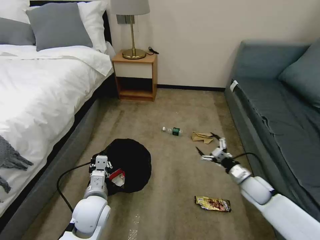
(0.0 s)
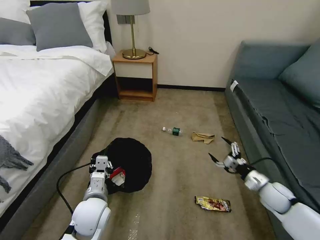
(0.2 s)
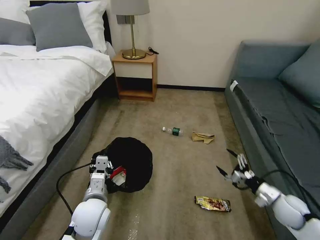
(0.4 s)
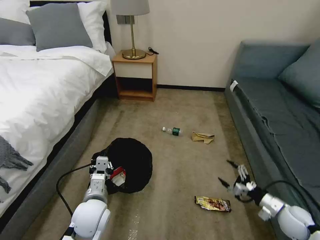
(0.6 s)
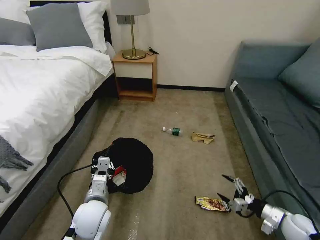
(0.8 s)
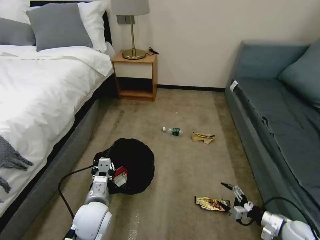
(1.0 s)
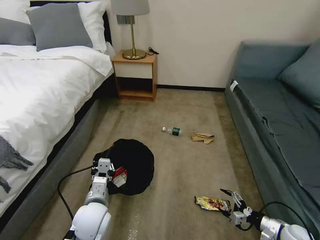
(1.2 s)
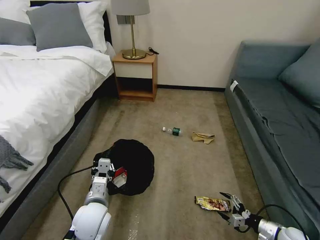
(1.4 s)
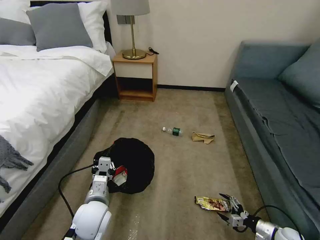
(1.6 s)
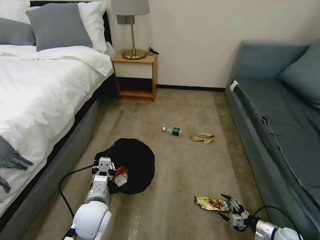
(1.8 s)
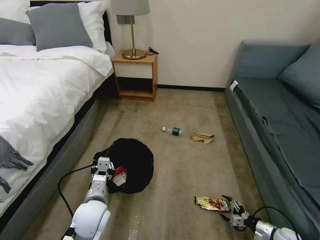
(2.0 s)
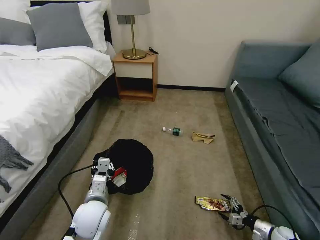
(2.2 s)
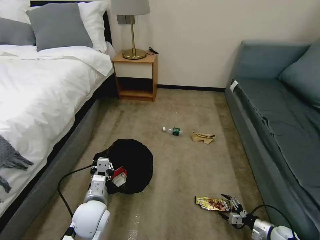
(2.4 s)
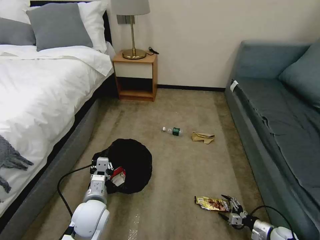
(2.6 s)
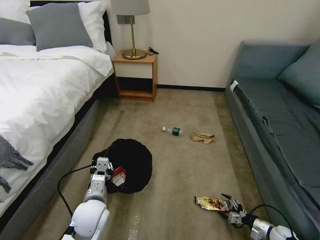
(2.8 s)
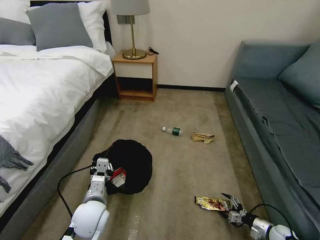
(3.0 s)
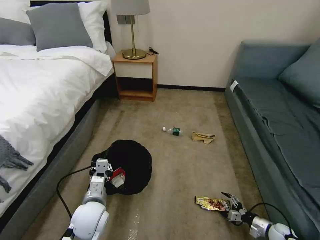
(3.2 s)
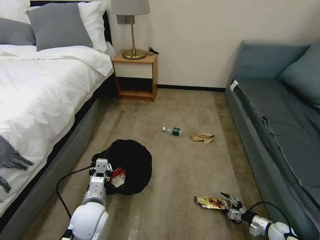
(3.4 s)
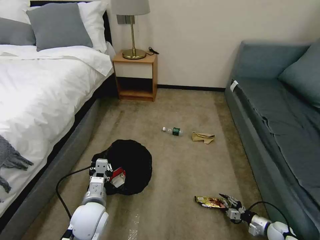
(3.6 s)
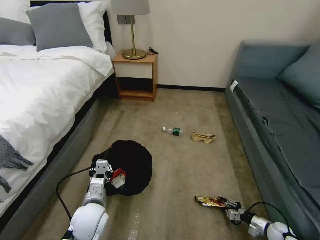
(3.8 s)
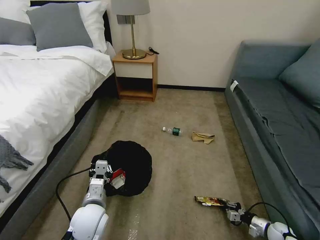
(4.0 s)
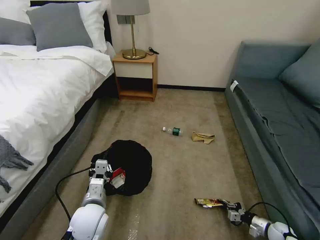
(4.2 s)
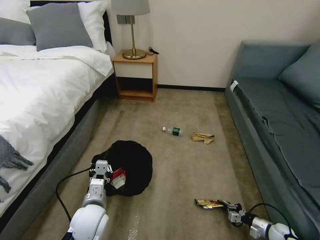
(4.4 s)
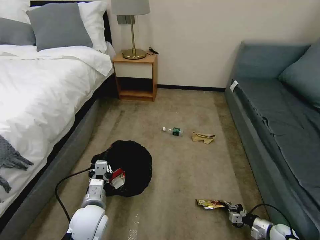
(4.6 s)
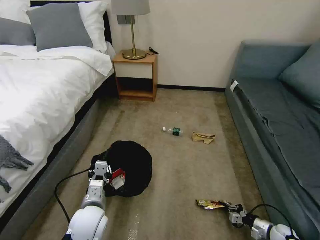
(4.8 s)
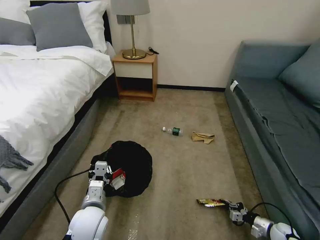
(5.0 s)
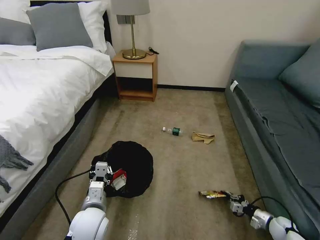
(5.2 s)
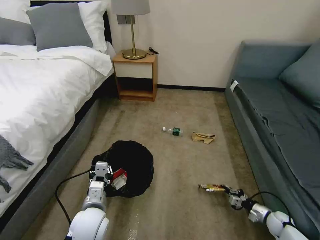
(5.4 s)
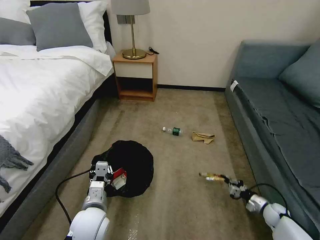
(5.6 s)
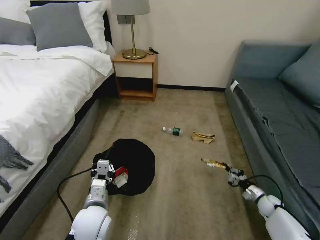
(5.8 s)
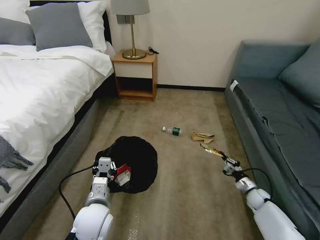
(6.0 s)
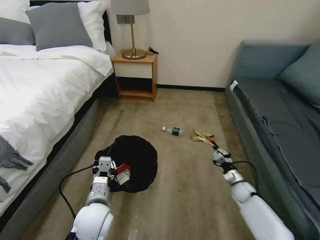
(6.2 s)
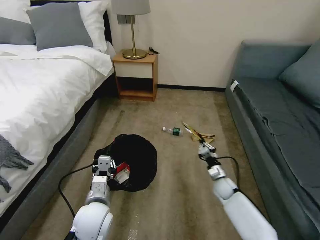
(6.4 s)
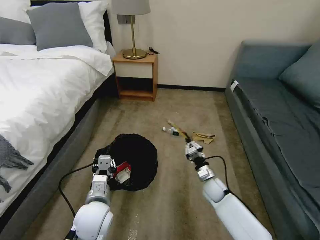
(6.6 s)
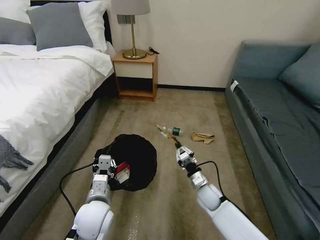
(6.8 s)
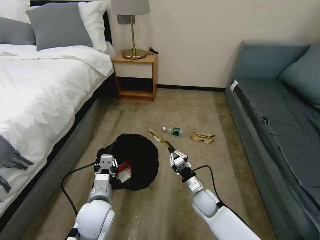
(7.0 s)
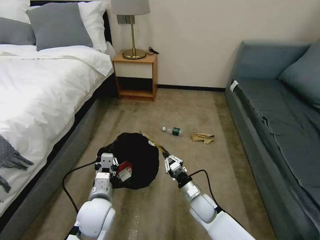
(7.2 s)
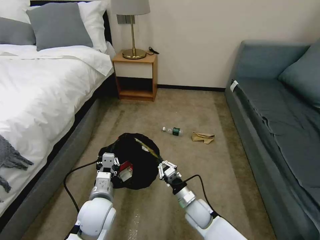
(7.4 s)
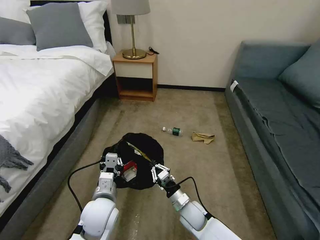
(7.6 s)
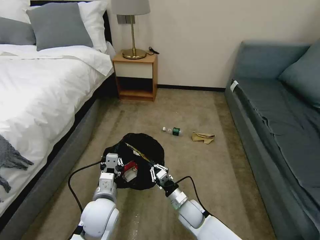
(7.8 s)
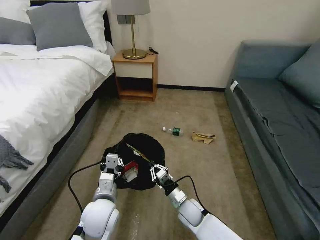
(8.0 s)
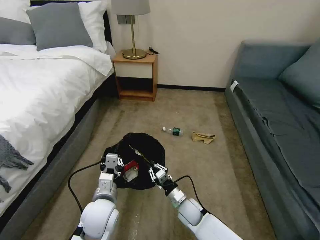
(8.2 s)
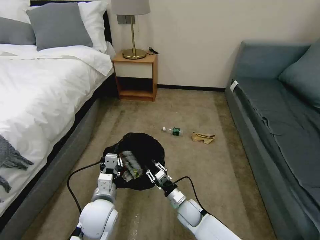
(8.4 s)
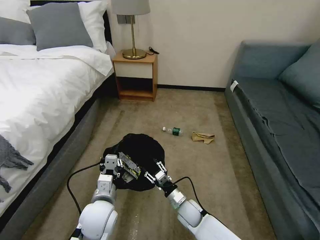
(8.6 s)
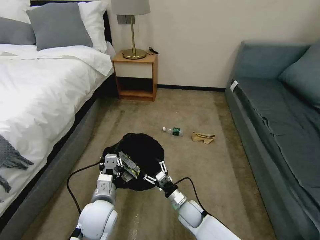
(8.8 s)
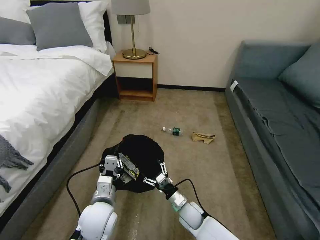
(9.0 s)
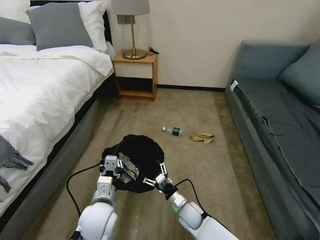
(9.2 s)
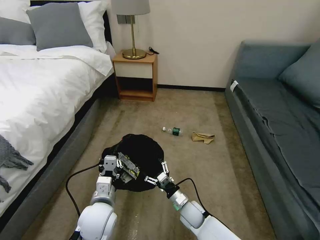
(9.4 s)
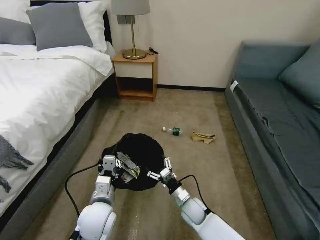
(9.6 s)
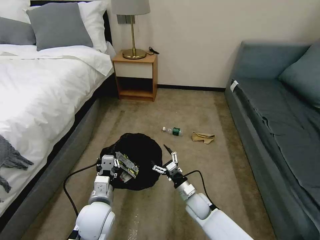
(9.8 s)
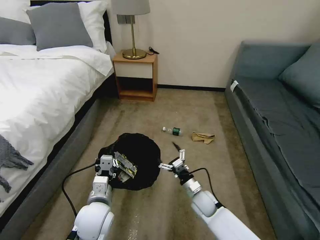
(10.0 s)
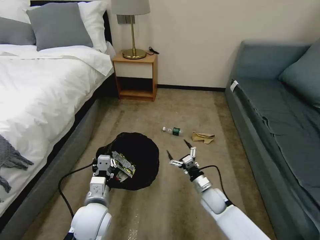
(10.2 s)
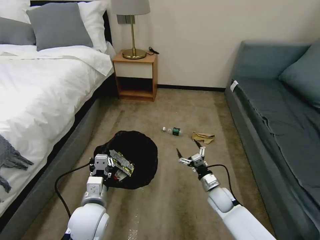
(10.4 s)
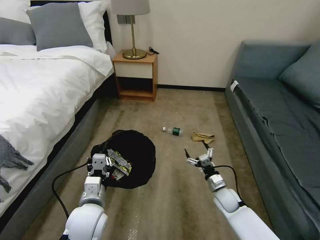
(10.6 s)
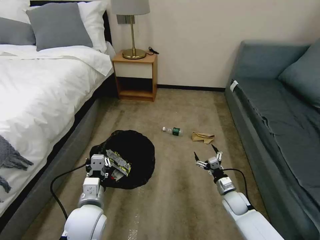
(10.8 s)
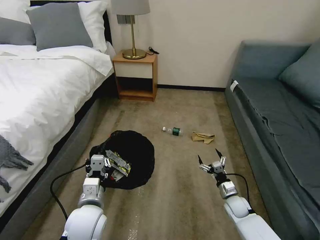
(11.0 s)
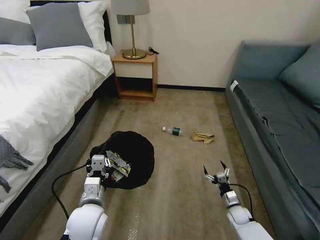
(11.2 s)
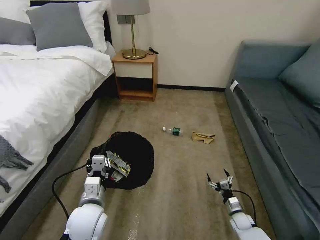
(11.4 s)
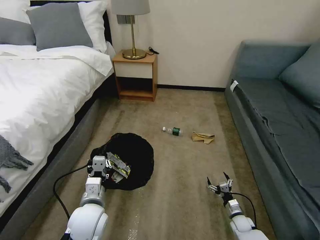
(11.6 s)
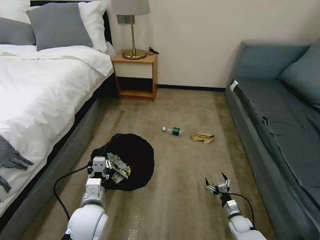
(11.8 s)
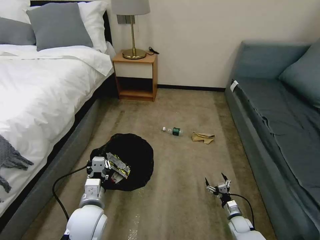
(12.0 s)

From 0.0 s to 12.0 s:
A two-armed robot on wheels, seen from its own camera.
Task of the whole recording: Pick up the trash bin, then pick up the garbage on the floor and place it into the trash bin.
From 0.0 s to 1.6 s: The right gripper is displaced backward, downward and to the right by some 20 cm.
From 1.6 s to 3.0 s: The right gripper goes some 5 cm downward.
From 3.0 s to 4.4 s: The right gripper closes up.
From 4.4 s to 6.0 s: The right gripper heads forward, covering roughly 15 cm.
From 6.0 s to 7.6 s: The right gripper shifts some 35 cm to the left.
From 7.6 s to 9.0 s: The right gripper opens up.
From 9.0 s to 10.4 s: The right gripper shifts roughly 10 cm to the right.
From 10.4 s to 12.0 s: The right gripper heads downward and to the right, covering roughly 20 cm.

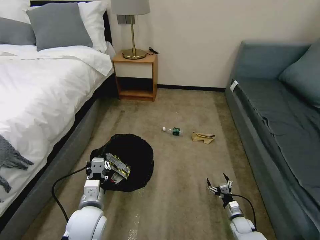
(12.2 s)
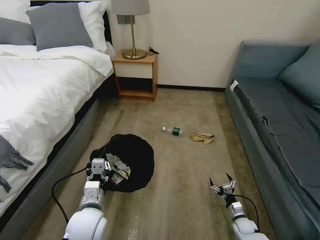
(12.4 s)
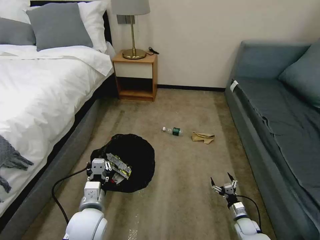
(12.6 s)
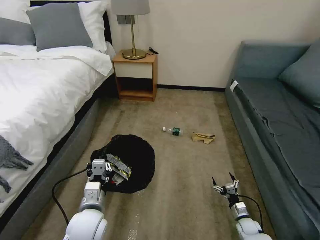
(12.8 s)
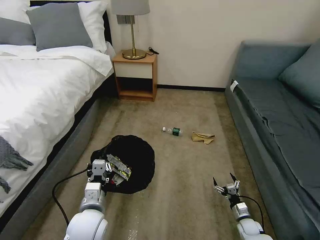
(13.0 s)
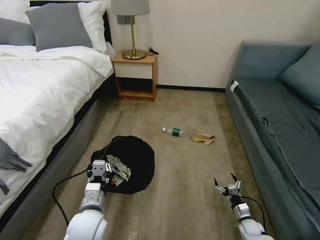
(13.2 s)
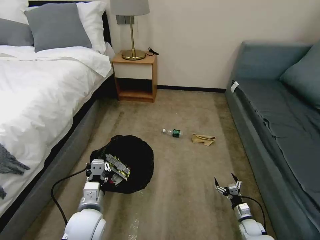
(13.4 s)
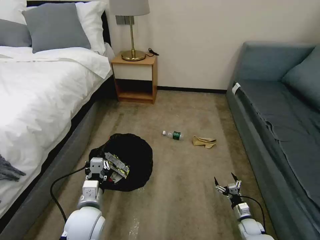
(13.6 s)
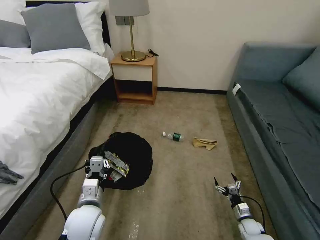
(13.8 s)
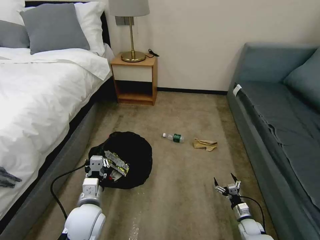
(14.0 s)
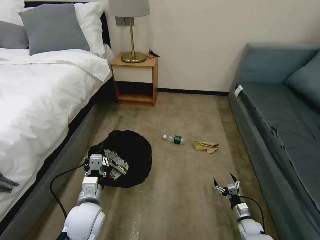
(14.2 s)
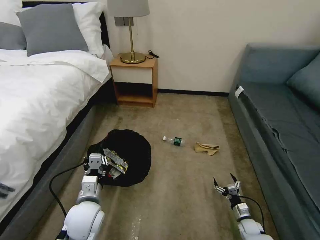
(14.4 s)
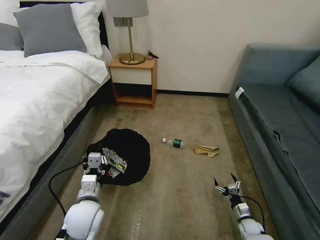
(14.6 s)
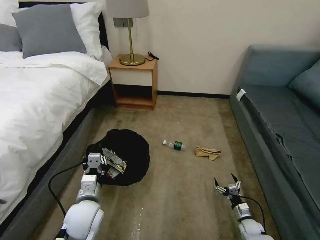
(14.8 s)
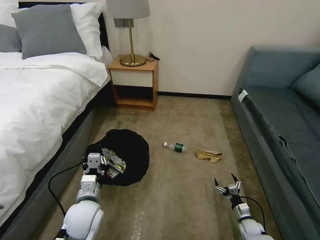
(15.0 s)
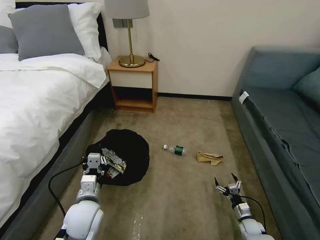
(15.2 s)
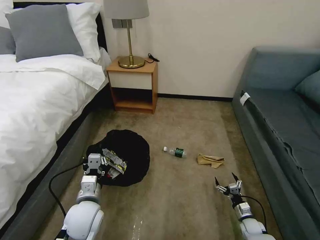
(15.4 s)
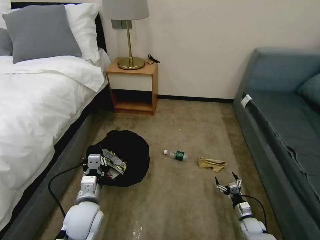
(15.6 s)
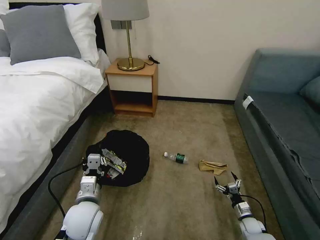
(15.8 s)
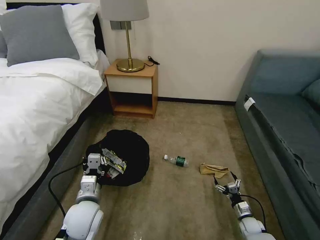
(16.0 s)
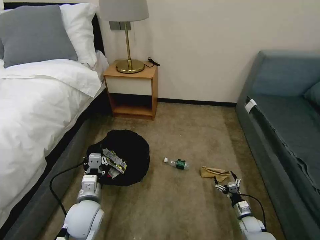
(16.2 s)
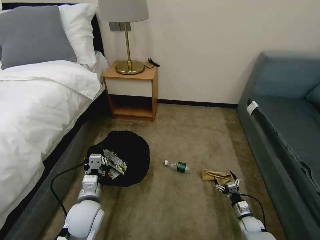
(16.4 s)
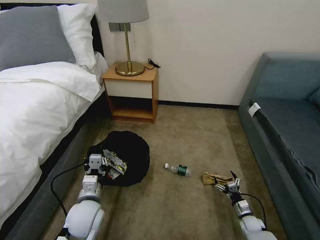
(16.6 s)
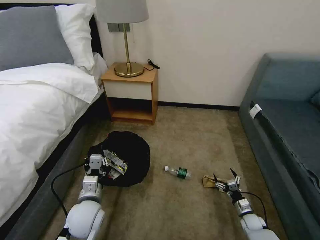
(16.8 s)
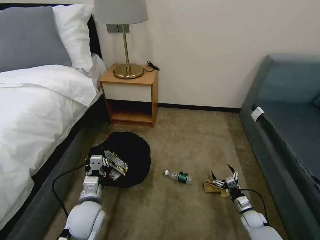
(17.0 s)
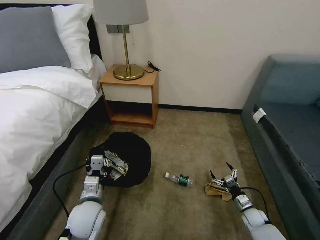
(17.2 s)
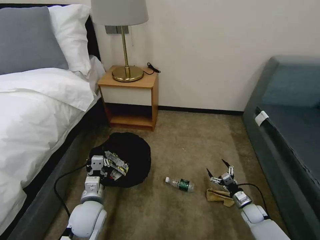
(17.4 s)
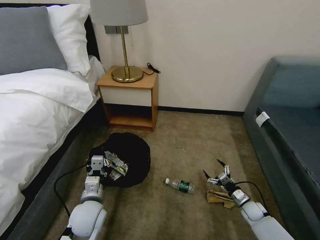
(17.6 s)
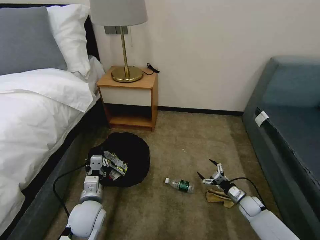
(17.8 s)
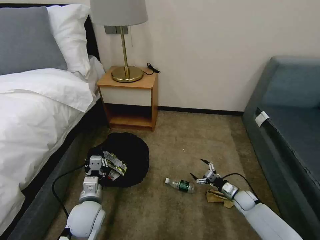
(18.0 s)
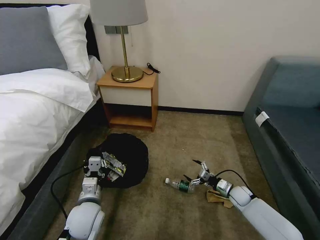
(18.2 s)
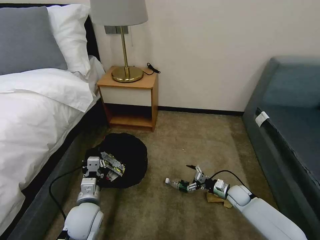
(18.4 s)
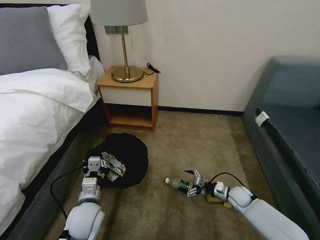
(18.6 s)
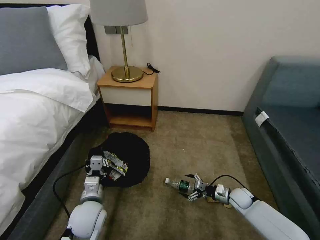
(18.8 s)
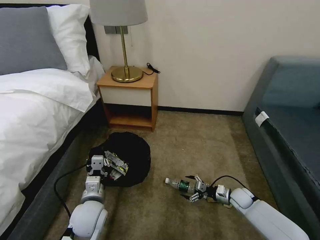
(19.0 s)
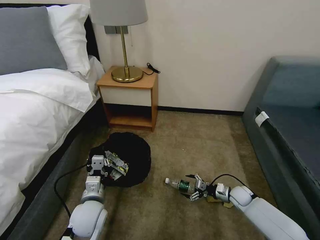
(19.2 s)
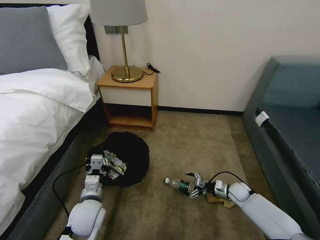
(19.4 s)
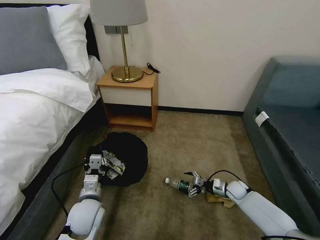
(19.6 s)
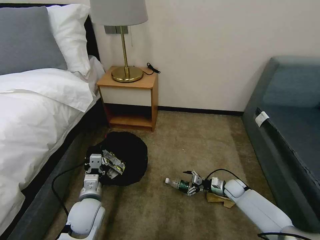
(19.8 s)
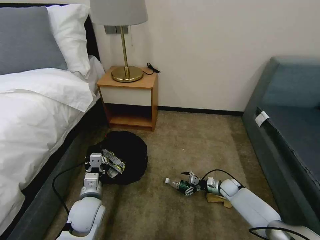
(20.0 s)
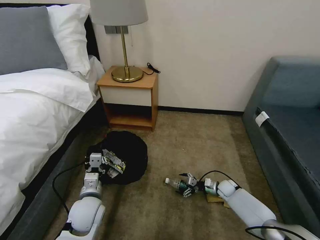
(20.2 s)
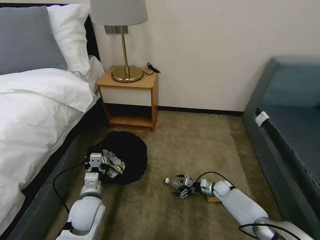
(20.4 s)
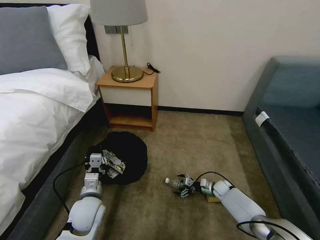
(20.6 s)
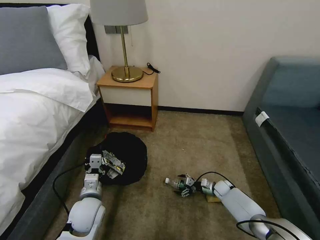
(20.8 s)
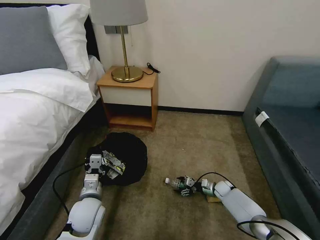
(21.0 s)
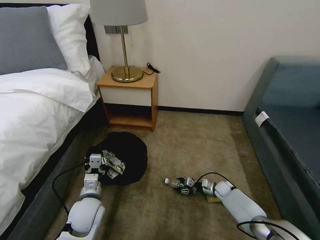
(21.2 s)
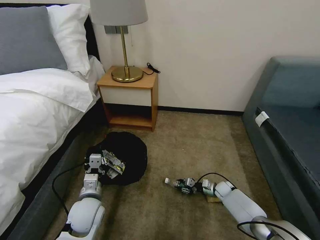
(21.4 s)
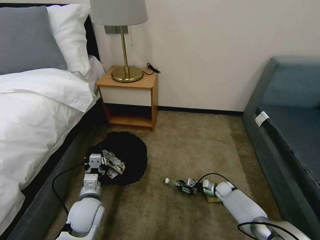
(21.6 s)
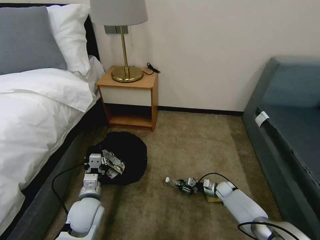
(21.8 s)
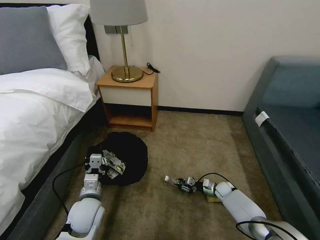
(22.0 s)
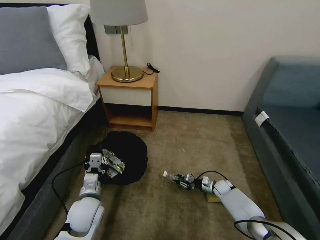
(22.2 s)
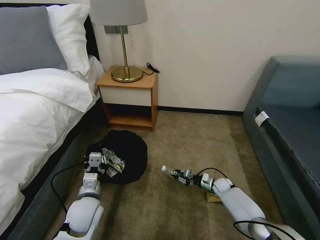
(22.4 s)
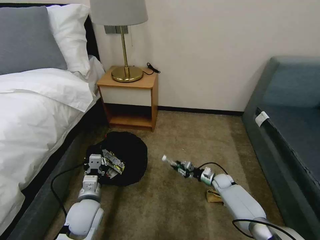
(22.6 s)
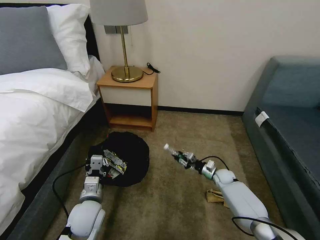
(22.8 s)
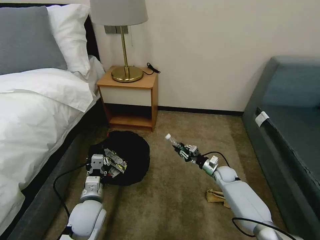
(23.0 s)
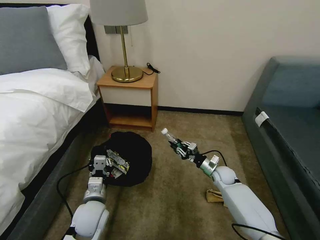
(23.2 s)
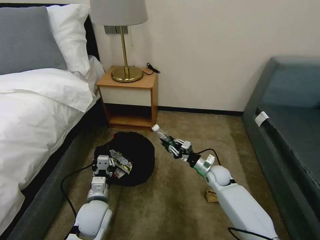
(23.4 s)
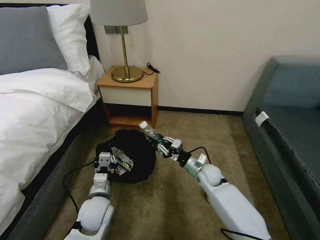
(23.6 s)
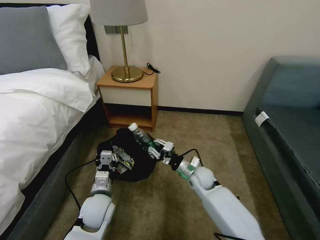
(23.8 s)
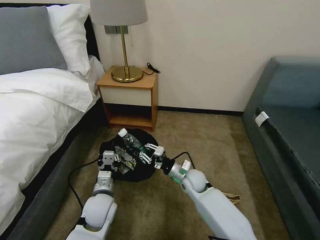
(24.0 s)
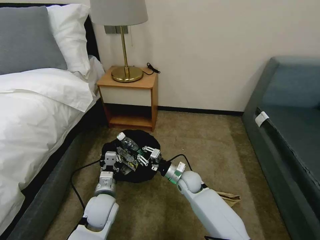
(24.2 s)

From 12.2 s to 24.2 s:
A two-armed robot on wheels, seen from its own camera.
Task of the whole recording: Pick up the trash bin, then pick up the garbage on the floor and place it into the trash bin.
From 12.2 s to 13.8 s: The grippers make only small movements.
From 16.6 s to 18.2 s: The right gripper travels forward and upward by about 15 cm.
From 19.8 s to 21.2 s: The right gripper shifts approximately 5 cm downward, and closes.
From 21.2 s to 22.6 s: The grippers move only a little.
From 22.6 s to 24.2 s: The right gripper heads to the left and upward, covering some 25 cm.
